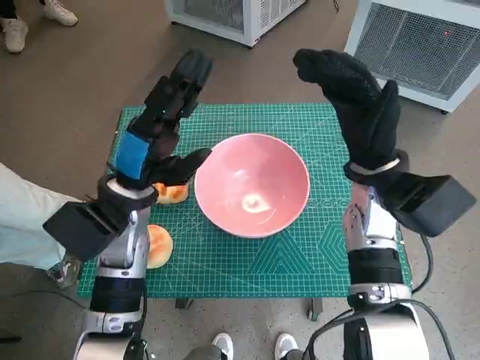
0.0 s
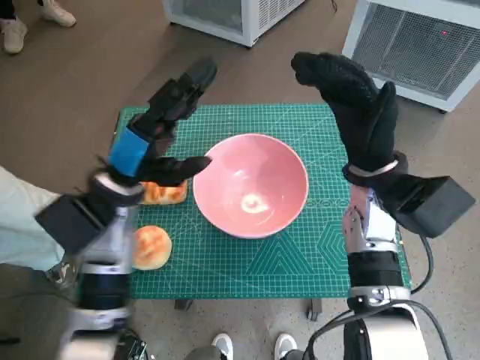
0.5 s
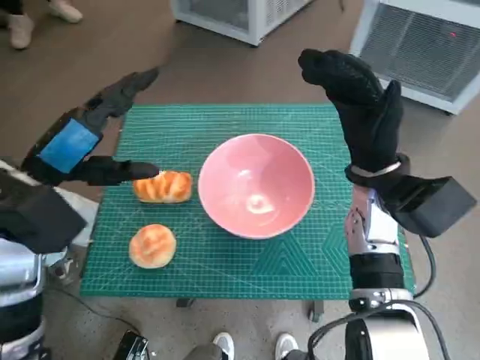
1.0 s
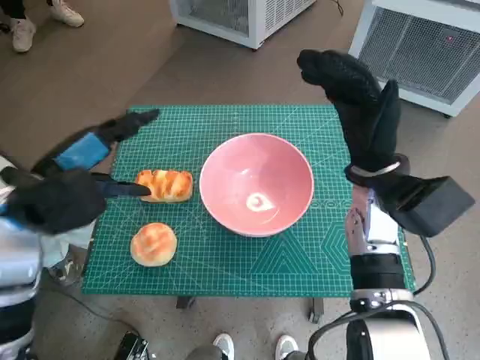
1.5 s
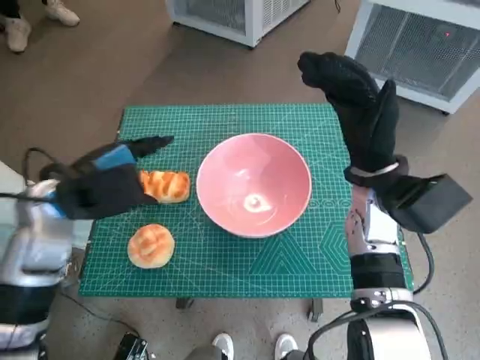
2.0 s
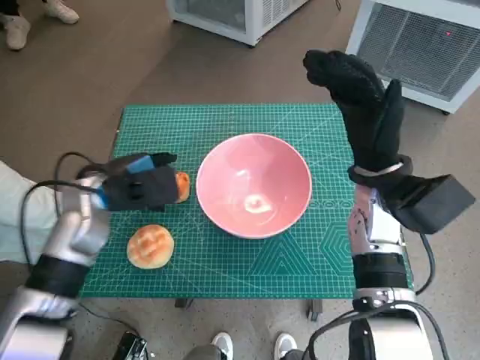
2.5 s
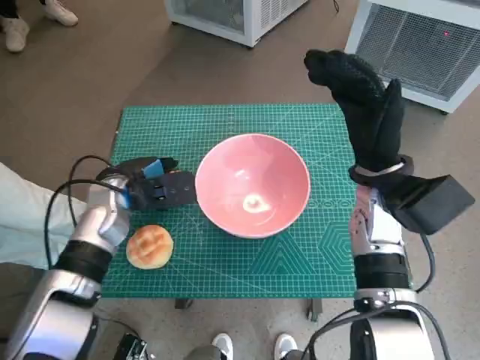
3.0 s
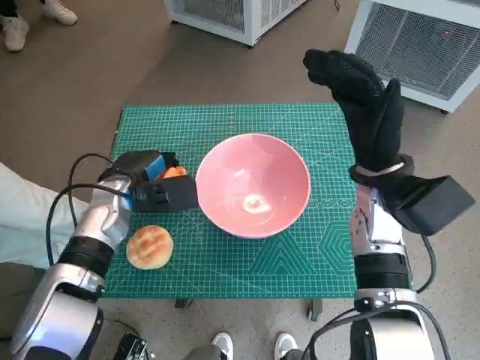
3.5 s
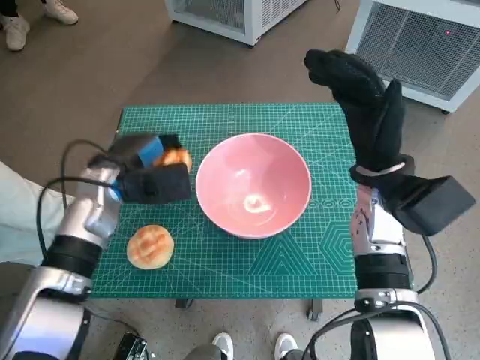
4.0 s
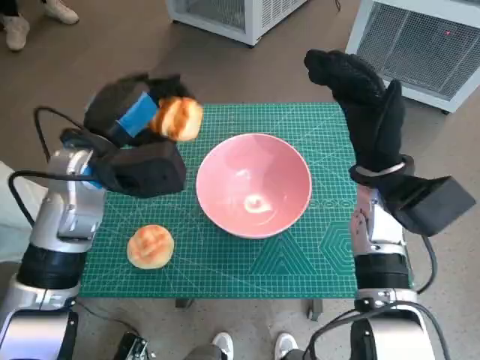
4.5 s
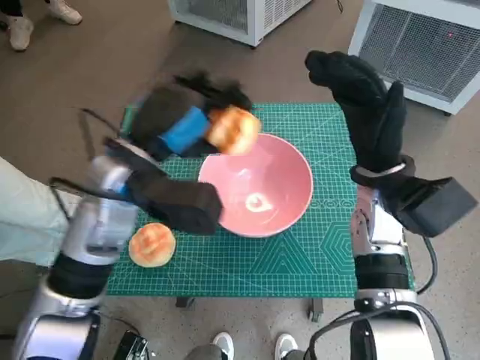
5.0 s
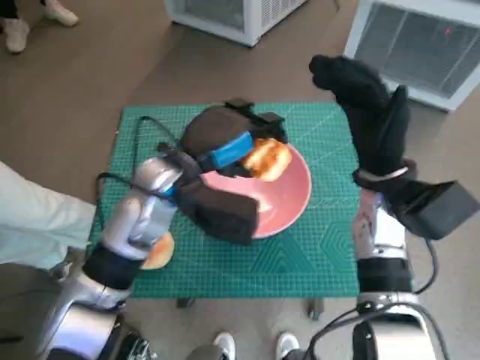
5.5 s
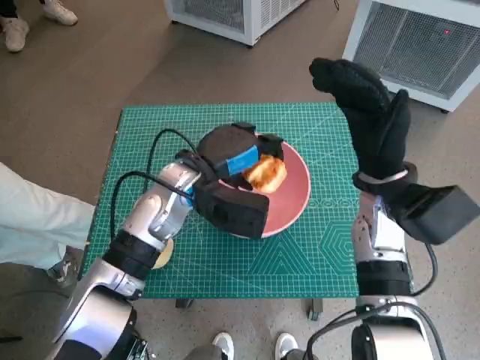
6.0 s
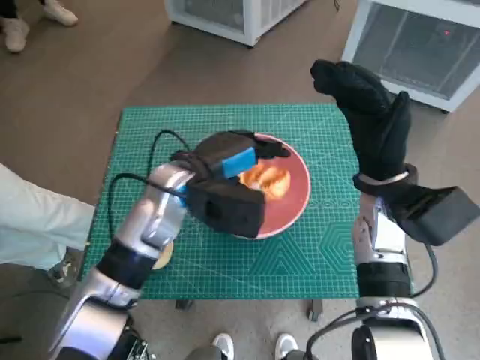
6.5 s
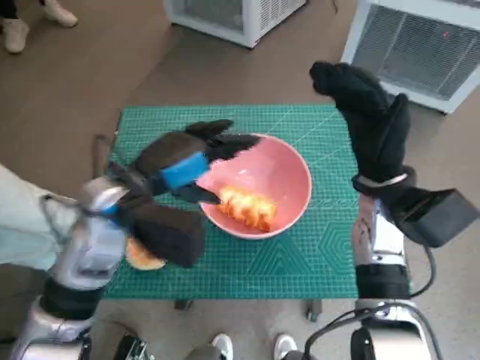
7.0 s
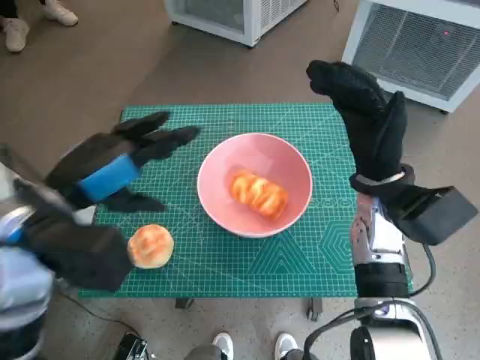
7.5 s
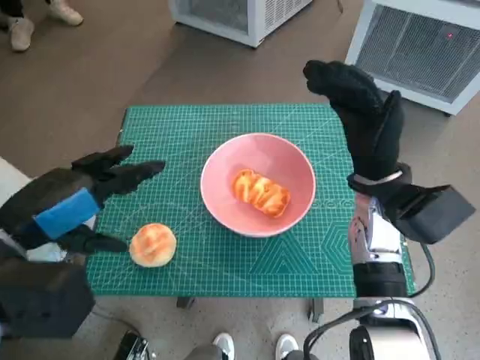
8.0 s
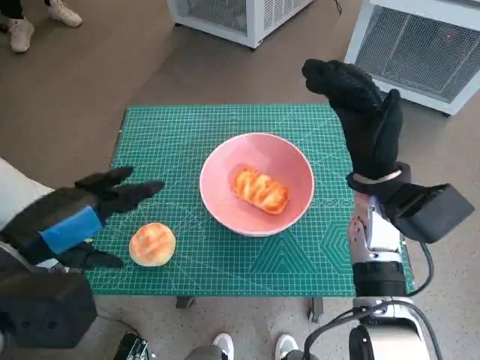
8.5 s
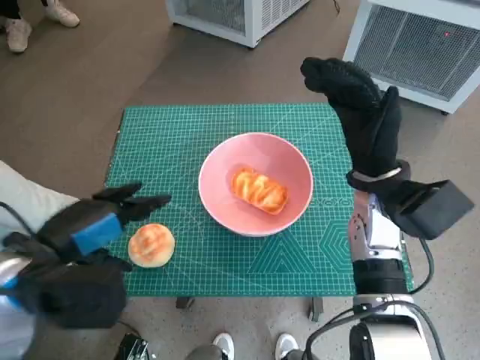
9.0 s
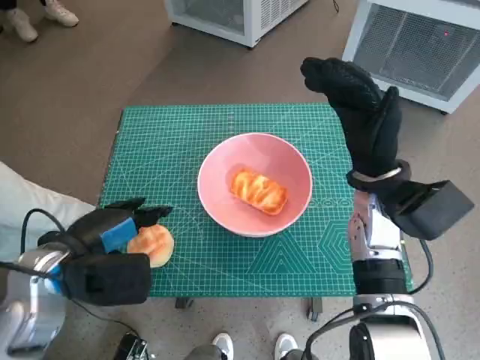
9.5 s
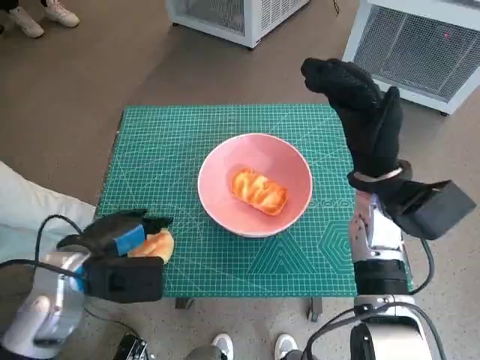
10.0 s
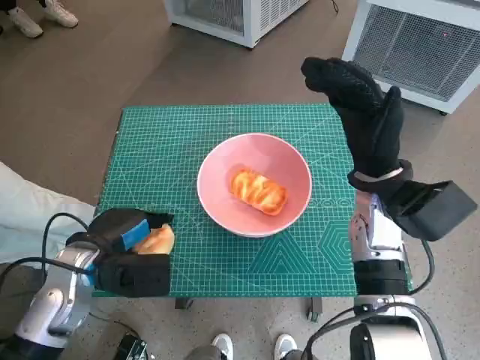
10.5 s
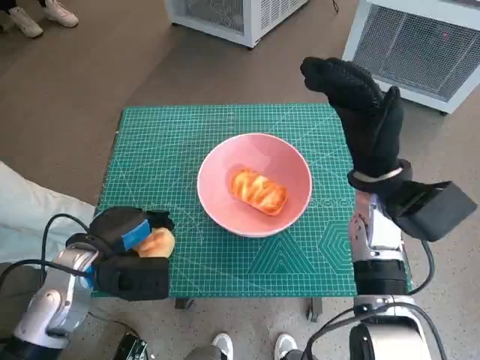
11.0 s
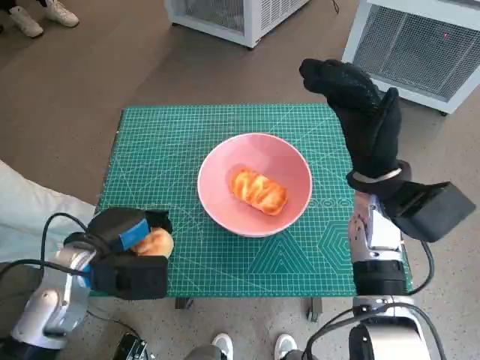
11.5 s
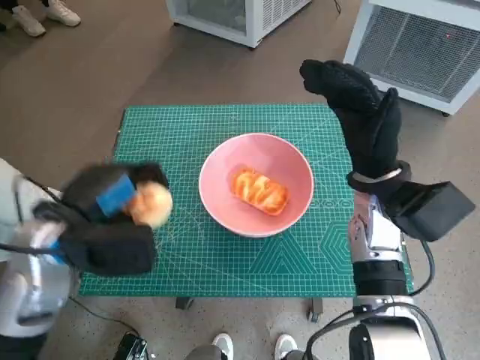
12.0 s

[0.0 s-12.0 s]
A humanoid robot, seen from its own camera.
Task of the whole recording: Push the bowl into the center of the table and put the bread into the bowl.
Step, 0.0 to 3.0 s: Grasp the long bread with left hand.
Step, 3.5 to 6.5 s: Place the long bread in pink bowl with left hand.
Step, 7.0 to 10.5 s: Grasp the round bread with left hand.
0.0 to 2.0 s: The left hand heads to the left, covering about 5 cm.
2.0 to 4.0 s: The left hand moves forward and downward, roughly 10 cm.
4.0 to 6.0 s: The left hand is displaced to the right by roughly 10 cm.
6.0 to 8.0 s: The left hand shifts about 20 cm backward, to the left and upward.
8.0 to 10.0 s: The left hand travels downward by approximately 10 cm.
10.0 to 12.0 s: The left hand shifts by some 5 cm.

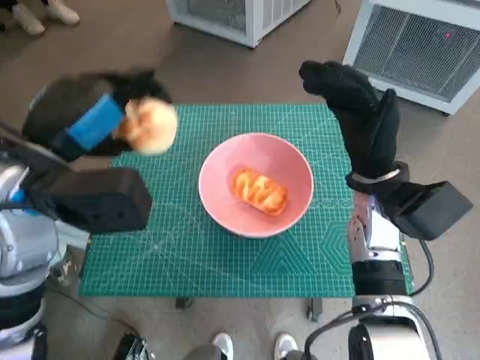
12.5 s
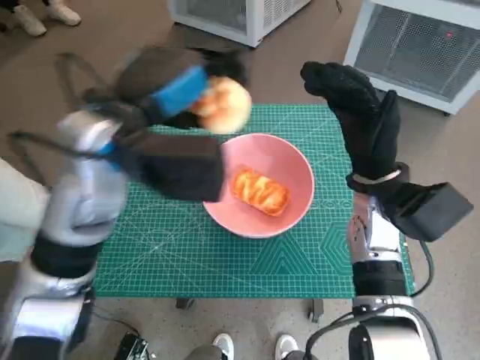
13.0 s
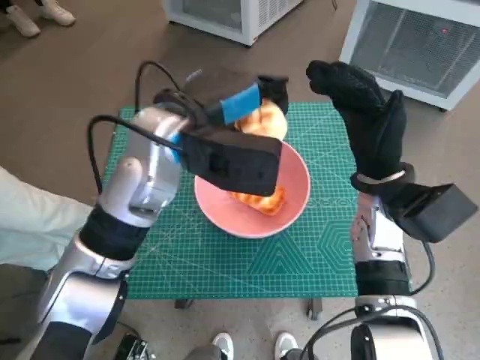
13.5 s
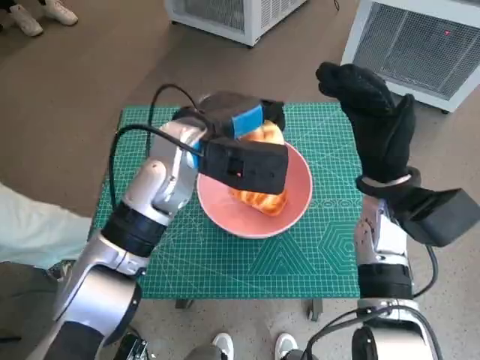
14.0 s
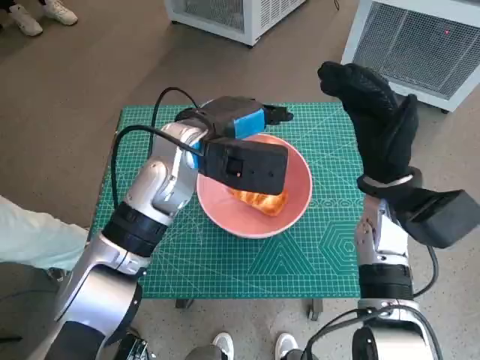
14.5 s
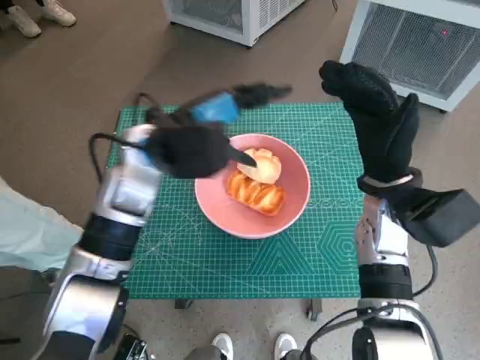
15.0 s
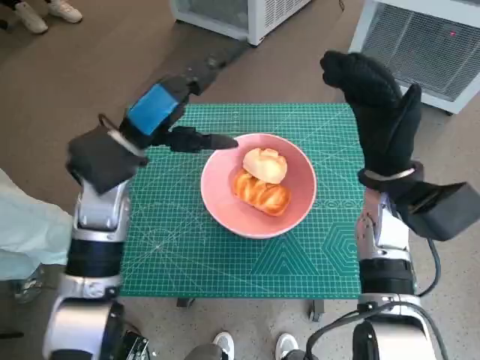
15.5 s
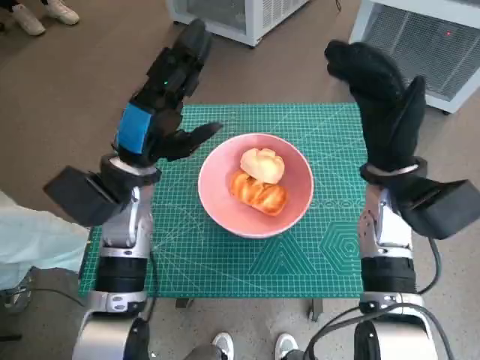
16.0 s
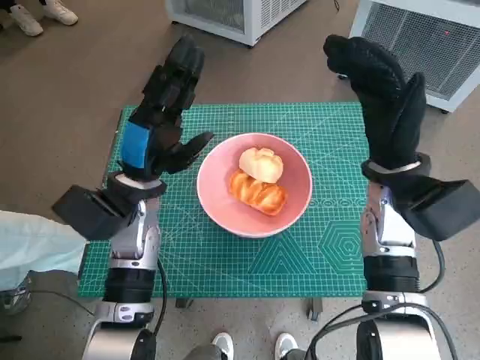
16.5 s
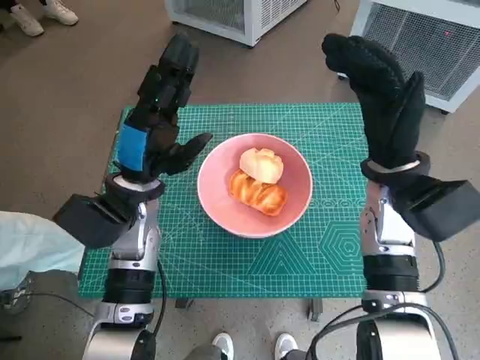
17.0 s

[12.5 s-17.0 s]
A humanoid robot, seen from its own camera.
Task of the whole recording: Push the bowl into the center of the table and put the bread into the bowl.
Step, 12.5 to 14.5 s: Place the round bread in pink bowl with left hand.
12.5 to 14.5 s: The left hand shifts some 15 cm to the right and forward.
14.5 to 17.0 s: The left hand goes approximately 10 cm to the left and downward.

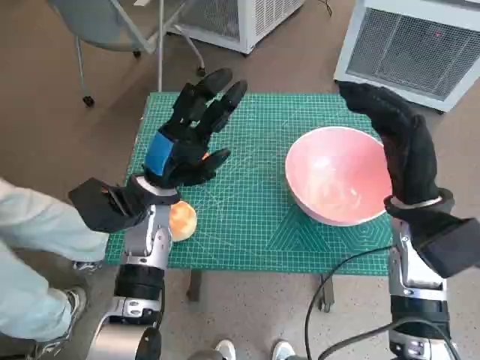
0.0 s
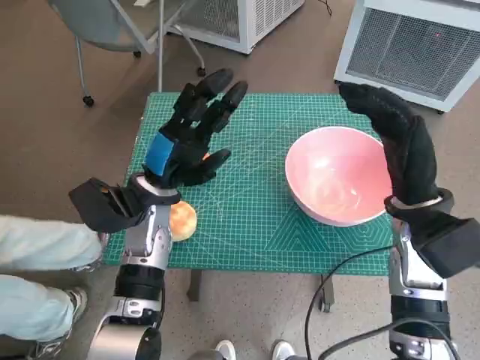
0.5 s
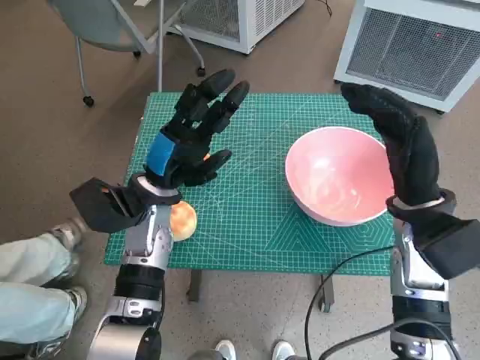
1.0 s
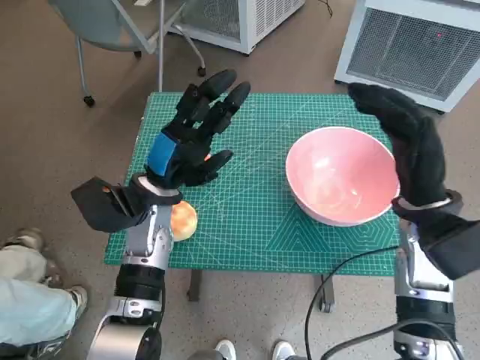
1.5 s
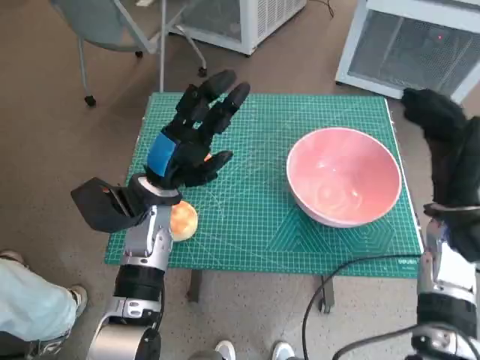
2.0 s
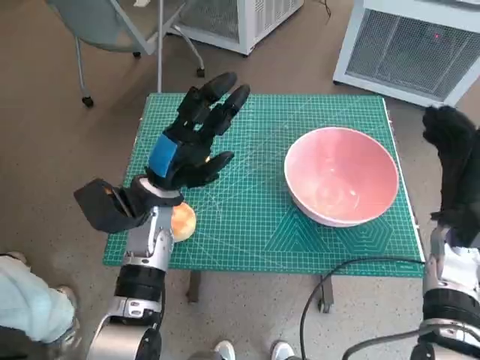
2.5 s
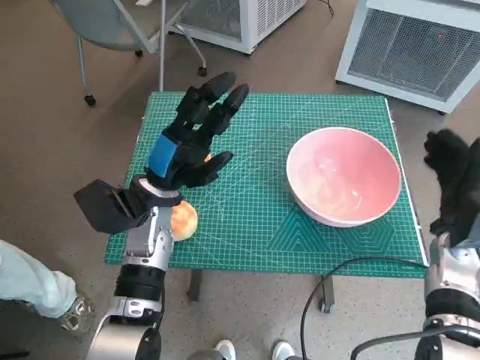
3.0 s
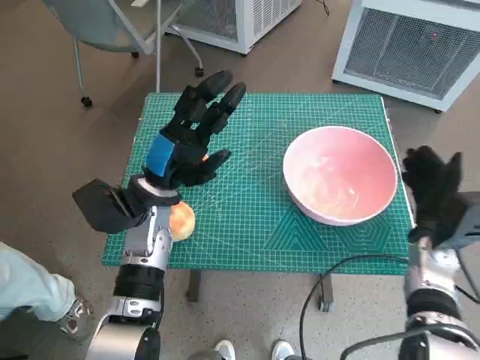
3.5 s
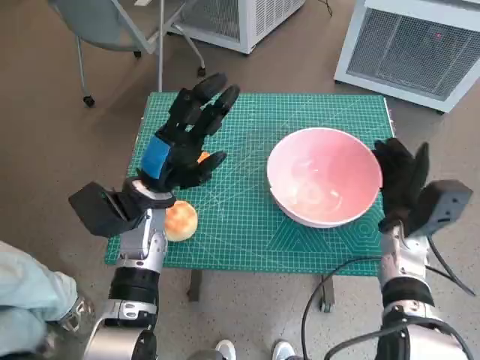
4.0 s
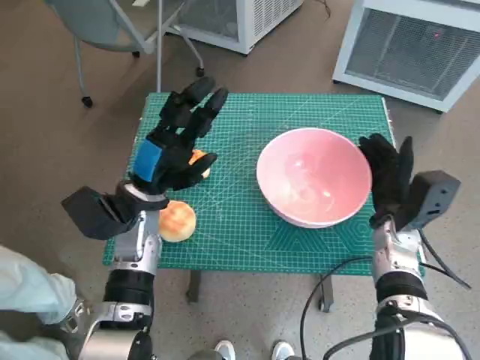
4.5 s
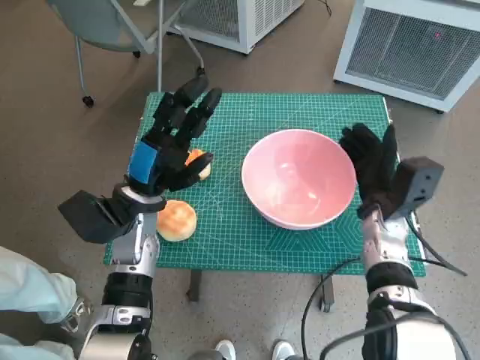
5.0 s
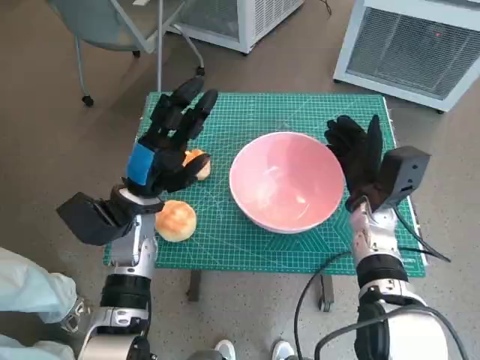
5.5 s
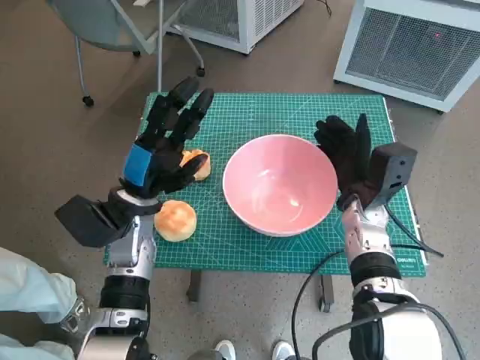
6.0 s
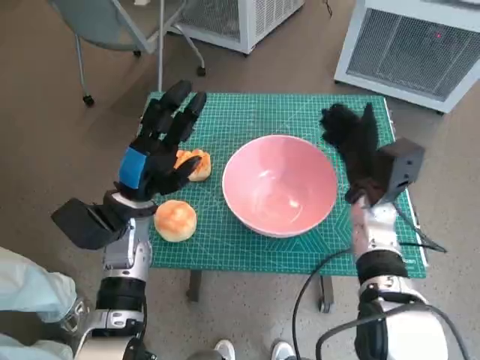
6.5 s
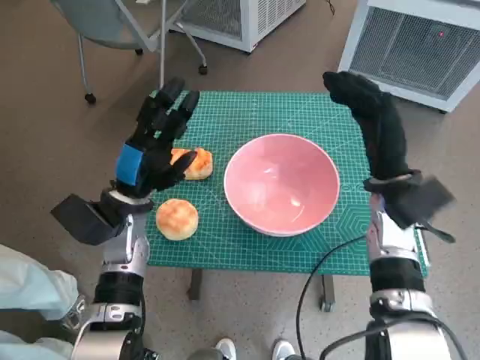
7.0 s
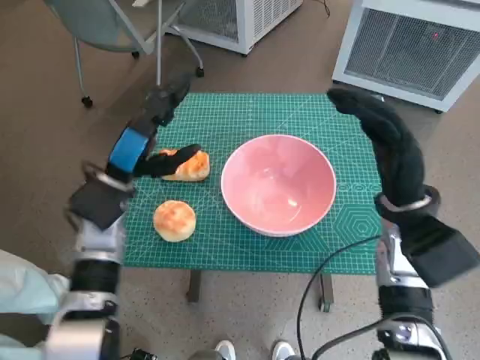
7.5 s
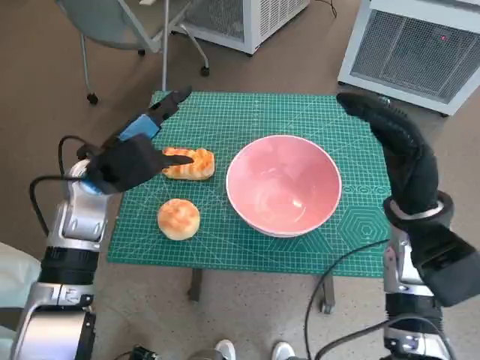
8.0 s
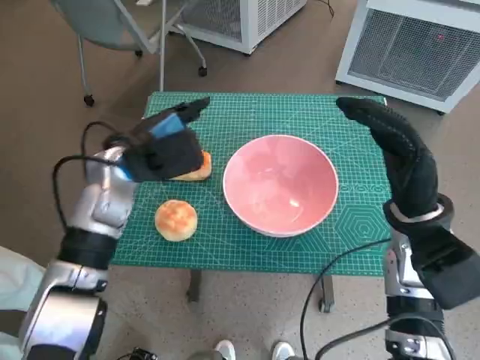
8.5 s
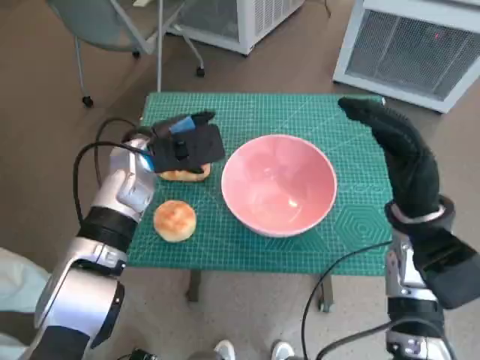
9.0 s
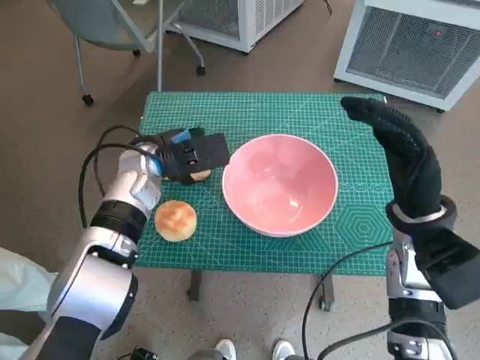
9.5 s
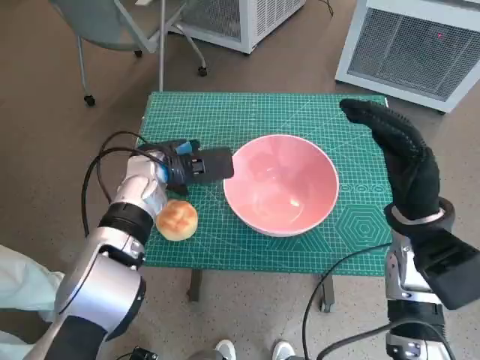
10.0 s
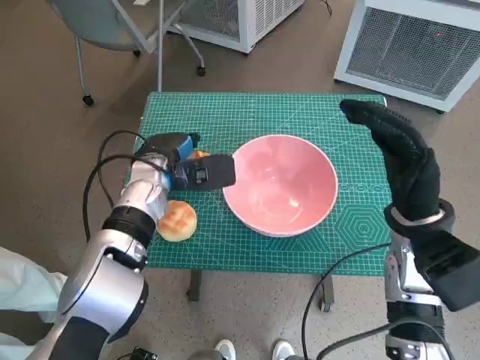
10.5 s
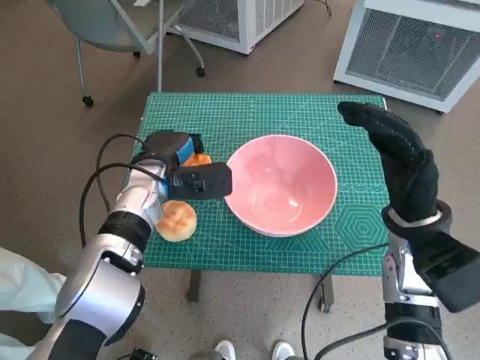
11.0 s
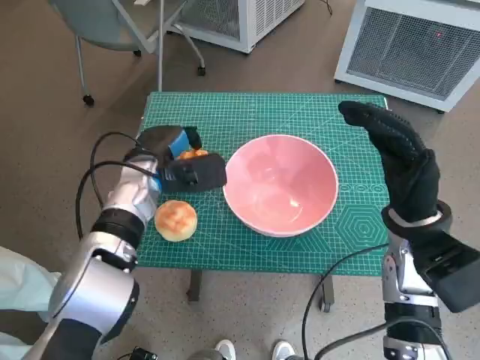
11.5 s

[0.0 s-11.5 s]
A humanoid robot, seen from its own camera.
Task of the whole recording: Push the bowl into the center of the table and put the bread into the bowl.
Step, 0.0 to 6.0 s: Move the pink bowl to the center of table with right hand.
2.0 to 4.0 s: The right hand is displaced downward by roughly 10 cm.
4.0 to 6.0 s: The right hand moves to the left, some 5 cm.
6.0 to 7.5 s: The right hand travels upward by some 5 cm.
7.5 to 9.5 s: The left hand is displaced forward by some 5 cm.
